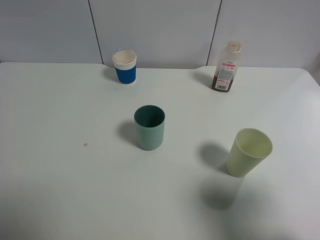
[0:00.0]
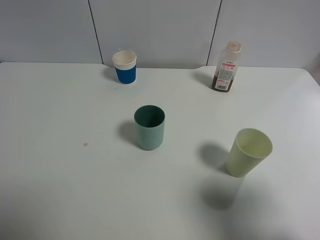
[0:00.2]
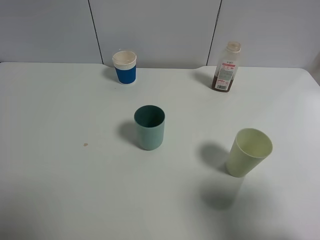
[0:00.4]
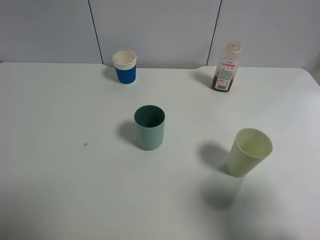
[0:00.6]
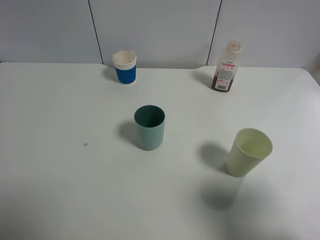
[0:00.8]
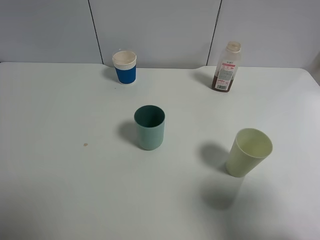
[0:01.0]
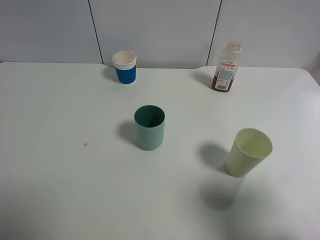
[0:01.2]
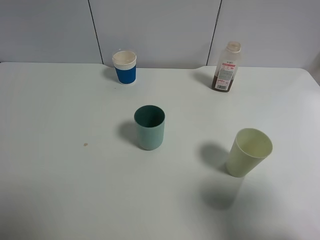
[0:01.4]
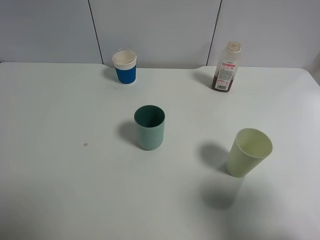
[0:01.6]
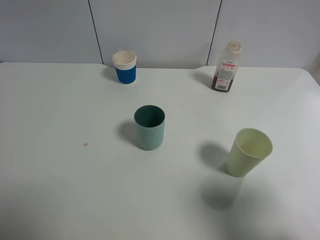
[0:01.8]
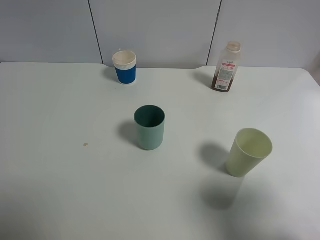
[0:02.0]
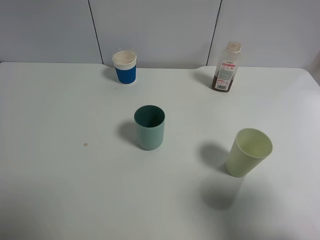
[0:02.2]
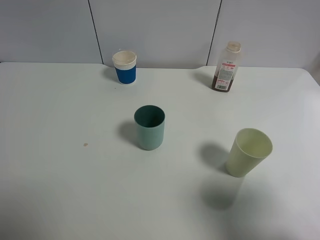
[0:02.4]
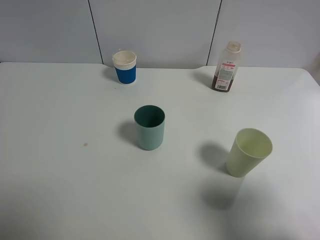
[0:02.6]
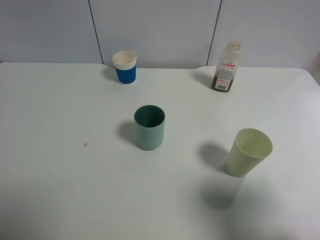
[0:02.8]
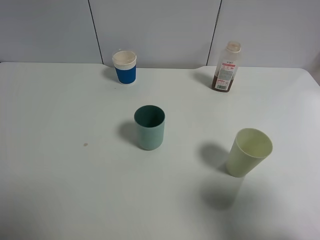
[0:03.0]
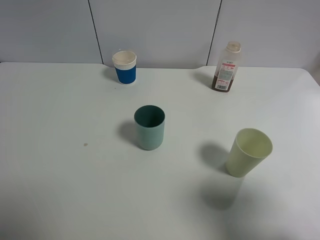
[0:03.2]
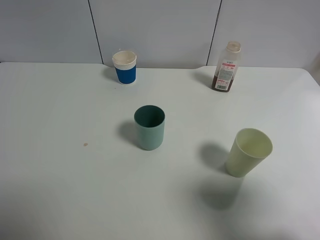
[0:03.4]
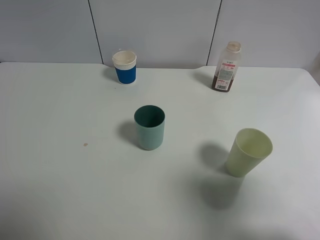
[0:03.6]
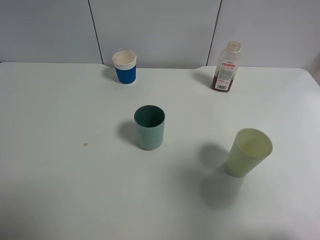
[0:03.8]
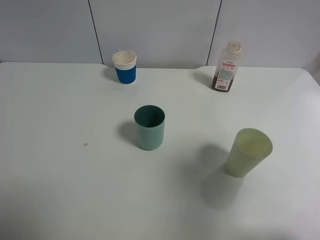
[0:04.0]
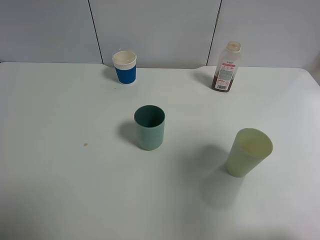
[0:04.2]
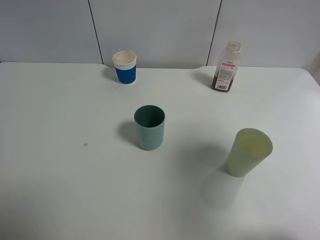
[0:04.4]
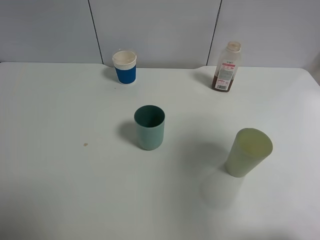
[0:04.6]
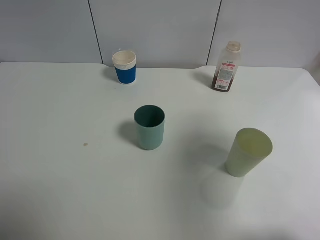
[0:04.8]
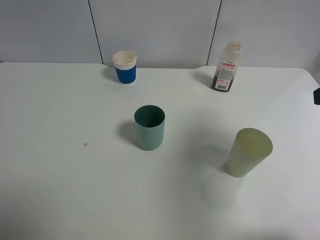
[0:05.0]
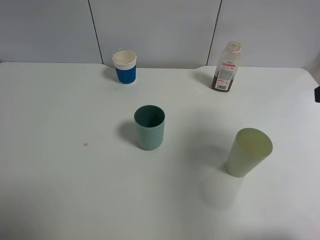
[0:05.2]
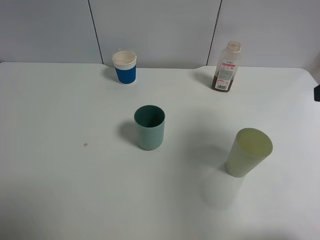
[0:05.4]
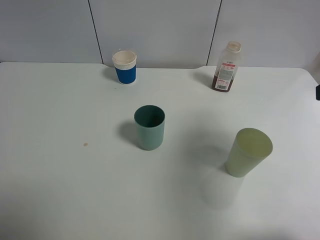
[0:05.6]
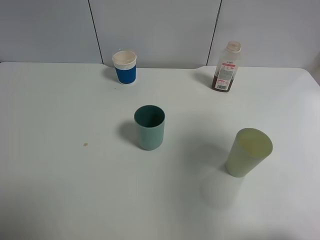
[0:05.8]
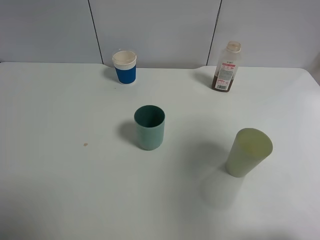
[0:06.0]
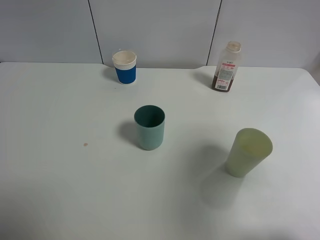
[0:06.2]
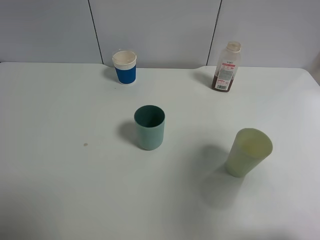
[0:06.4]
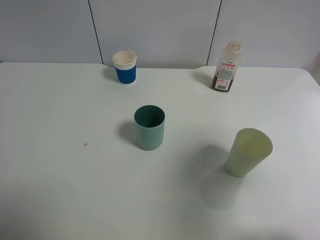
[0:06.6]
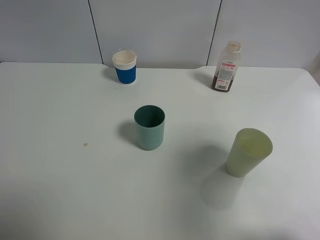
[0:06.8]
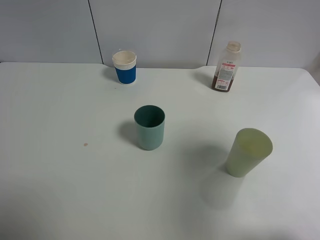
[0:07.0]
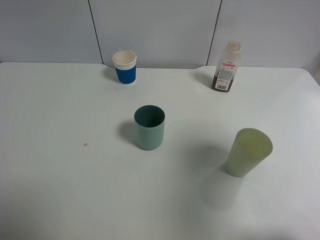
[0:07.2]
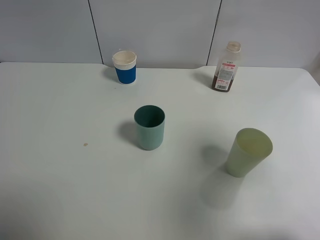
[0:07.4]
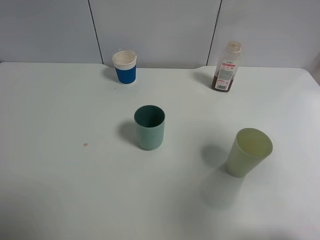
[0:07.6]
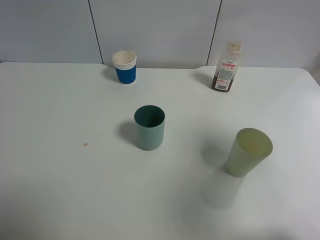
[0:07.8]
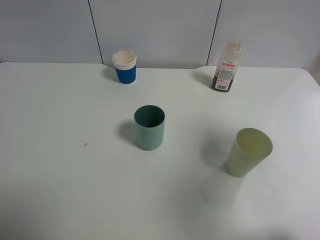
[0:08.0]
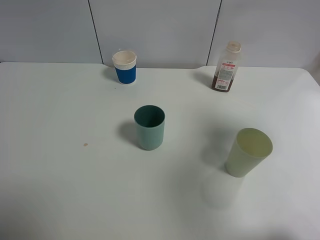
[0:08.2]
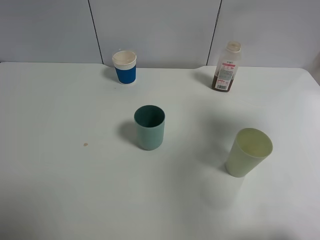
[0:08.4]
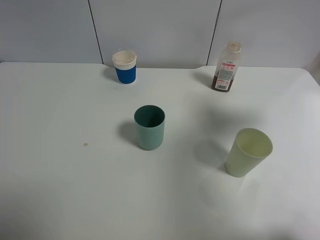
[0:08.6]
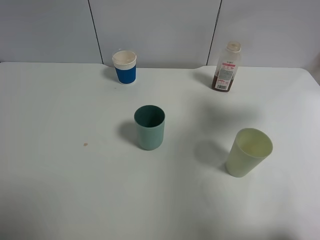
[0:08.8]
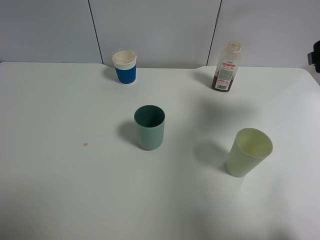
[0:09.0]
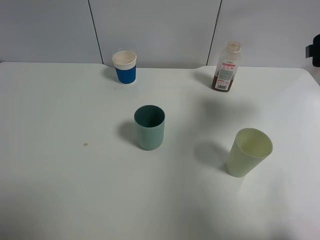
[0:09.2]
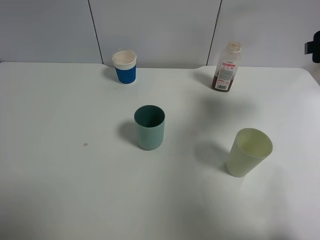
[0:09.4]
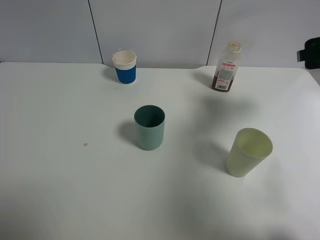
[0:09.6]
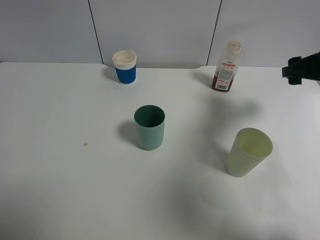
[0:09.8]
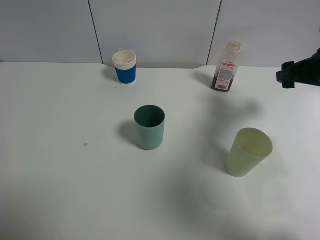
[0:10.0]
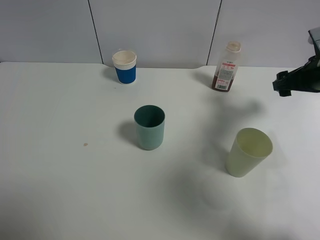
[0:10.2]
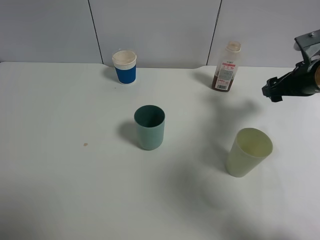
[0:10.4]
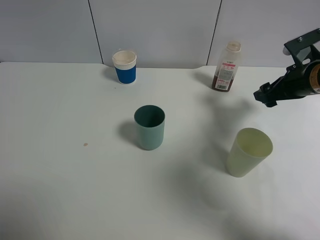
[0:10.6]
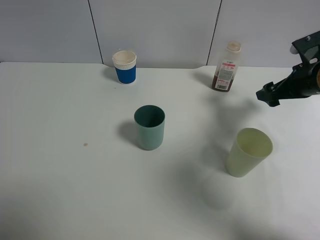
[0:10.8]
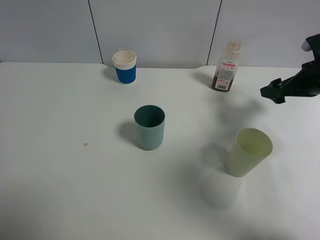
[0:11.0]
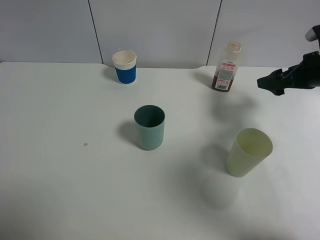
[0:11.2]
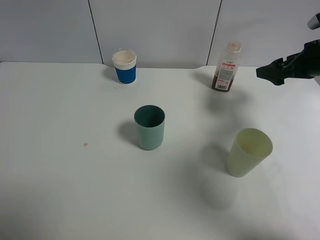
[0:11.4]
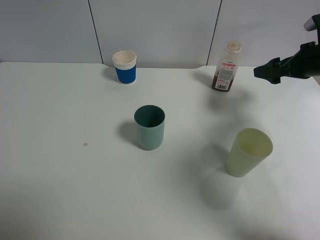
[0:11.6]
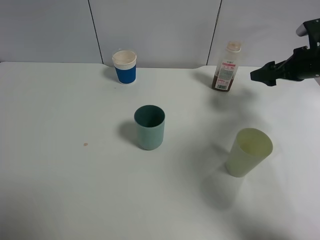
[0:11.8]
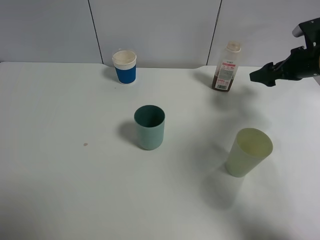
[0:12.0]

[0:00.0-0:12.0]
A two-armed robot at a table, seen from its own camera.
Task of the whole recording: use a gripper to hold the bottle of the drink and pour it into a random cup.
0:00.0 to 0:03.0: The two grippers keep their place.
0:03.0 to 0:04.4: The right gripper is displaced forward and upward by some 10 cm.
0:07.6 to 0:09.0: The right gripper heads forward and downward, covering approximately 15 cm.
0:09.0 to 0:10.4: The right gripper goes roughly 10 cm downward and forward.
0:10.4 to 0:12.0: The right gripper goes roughly 5 cm forward.

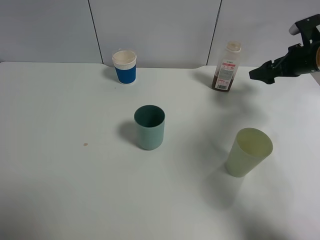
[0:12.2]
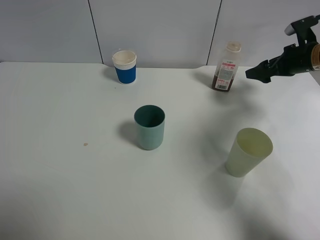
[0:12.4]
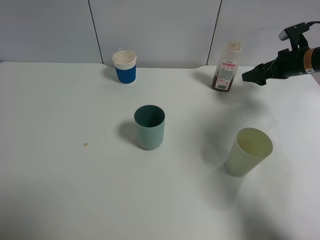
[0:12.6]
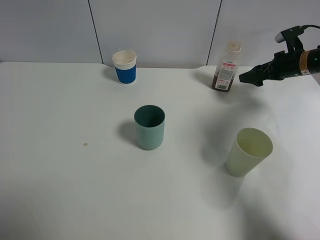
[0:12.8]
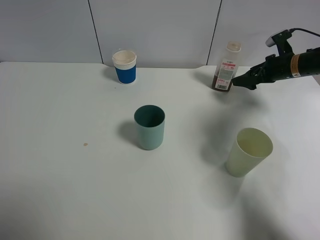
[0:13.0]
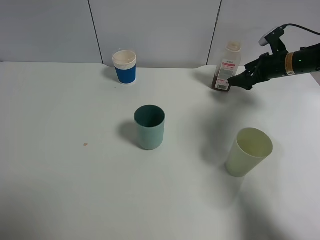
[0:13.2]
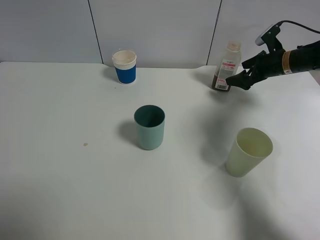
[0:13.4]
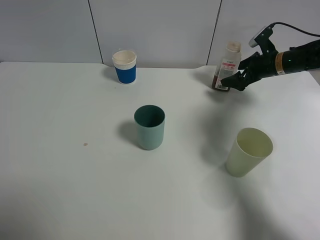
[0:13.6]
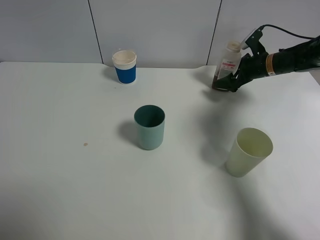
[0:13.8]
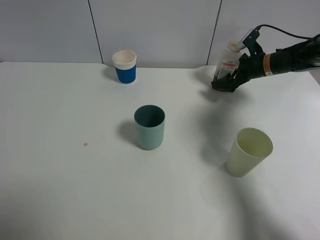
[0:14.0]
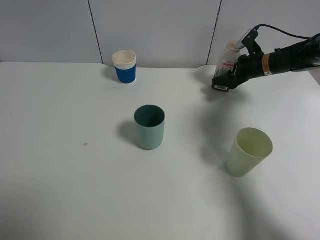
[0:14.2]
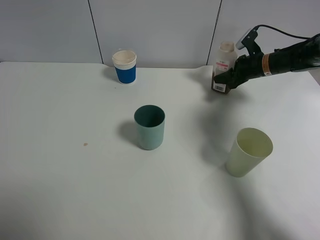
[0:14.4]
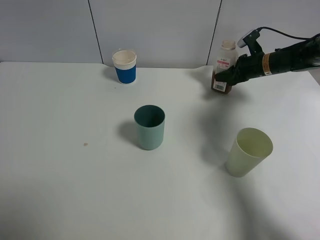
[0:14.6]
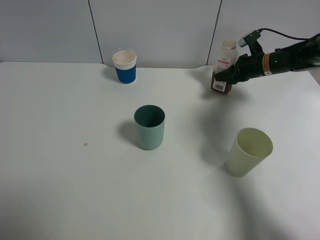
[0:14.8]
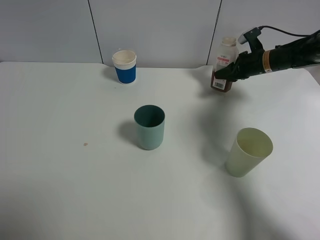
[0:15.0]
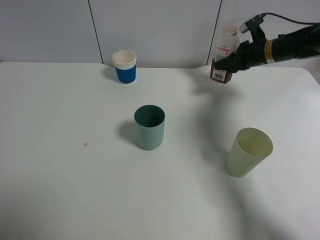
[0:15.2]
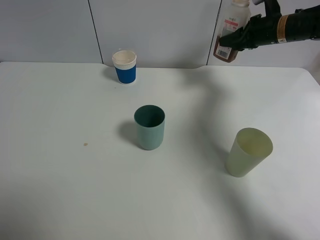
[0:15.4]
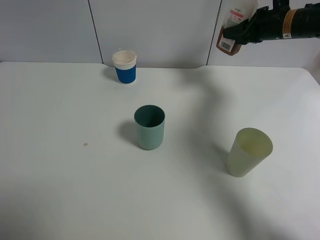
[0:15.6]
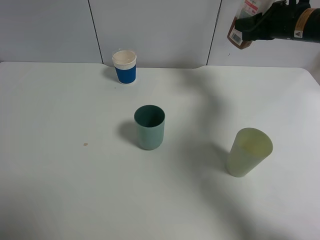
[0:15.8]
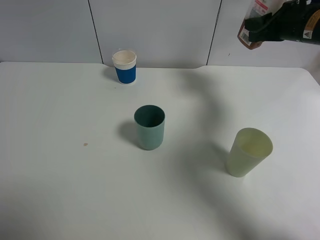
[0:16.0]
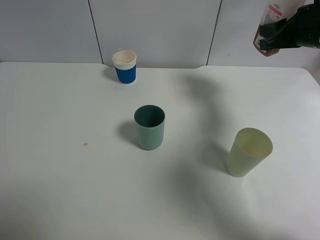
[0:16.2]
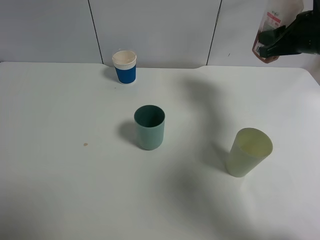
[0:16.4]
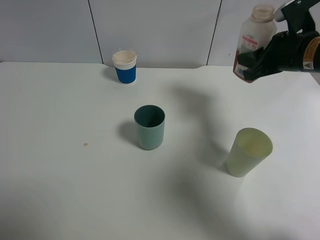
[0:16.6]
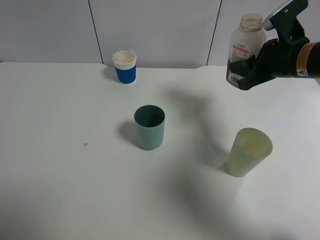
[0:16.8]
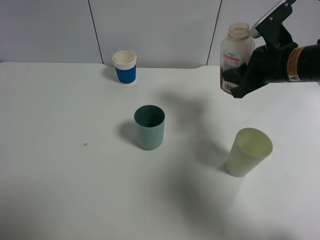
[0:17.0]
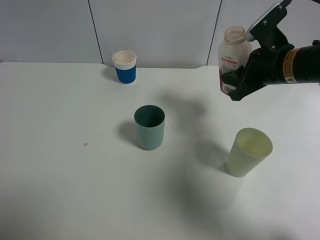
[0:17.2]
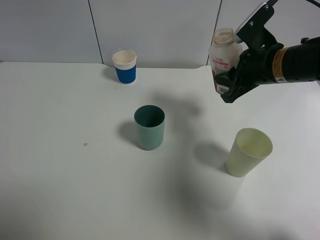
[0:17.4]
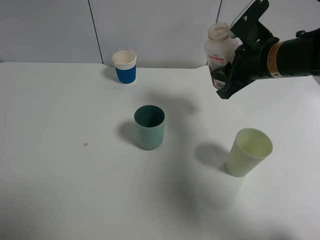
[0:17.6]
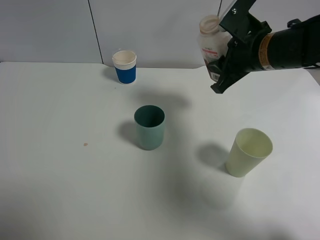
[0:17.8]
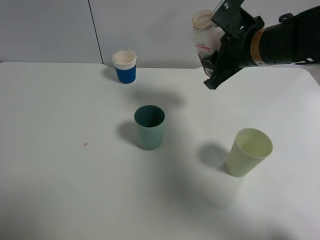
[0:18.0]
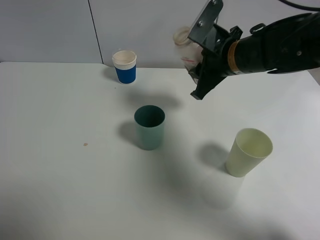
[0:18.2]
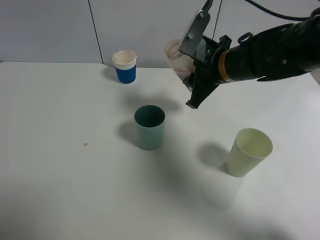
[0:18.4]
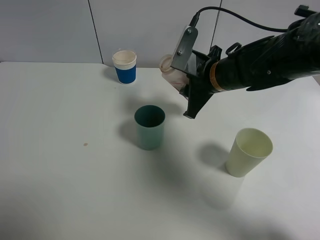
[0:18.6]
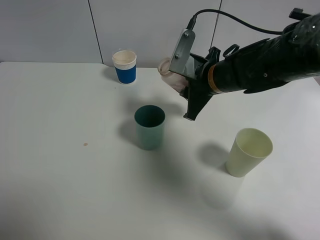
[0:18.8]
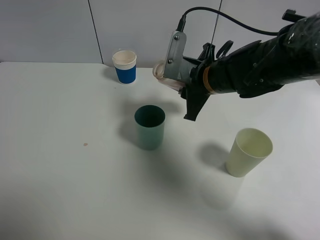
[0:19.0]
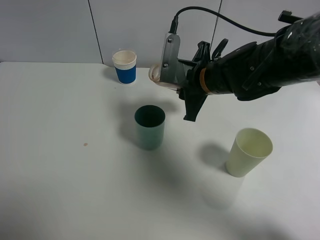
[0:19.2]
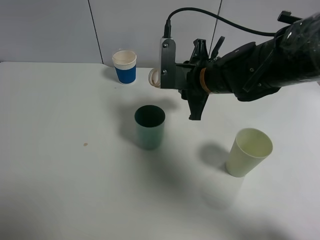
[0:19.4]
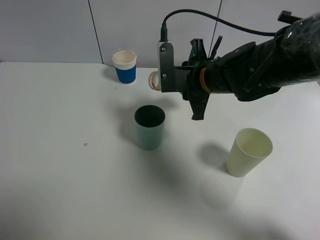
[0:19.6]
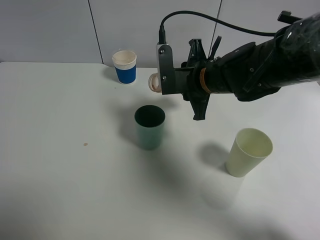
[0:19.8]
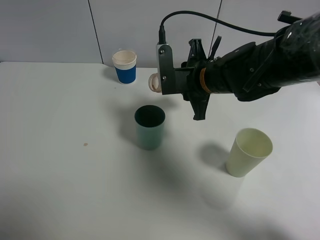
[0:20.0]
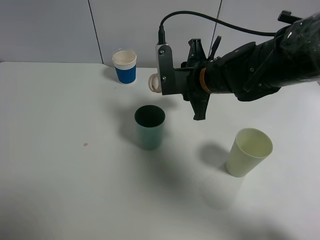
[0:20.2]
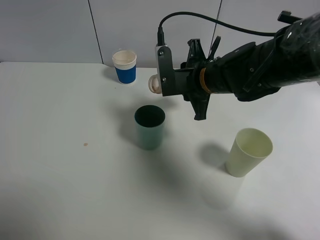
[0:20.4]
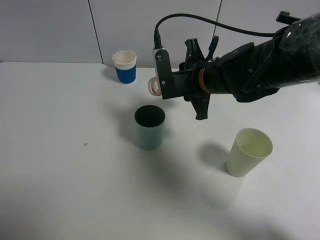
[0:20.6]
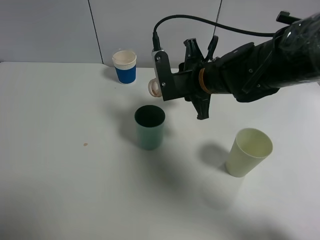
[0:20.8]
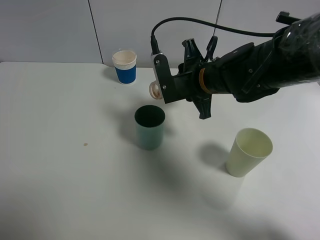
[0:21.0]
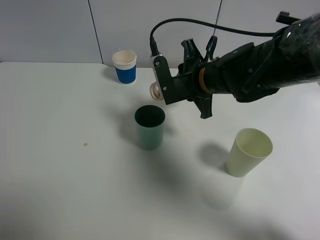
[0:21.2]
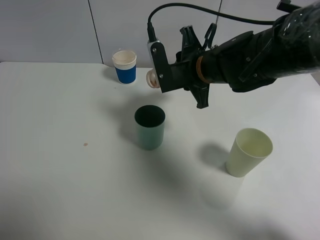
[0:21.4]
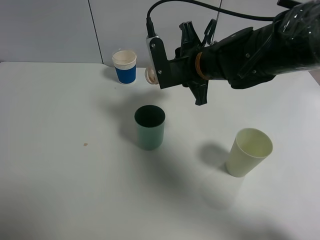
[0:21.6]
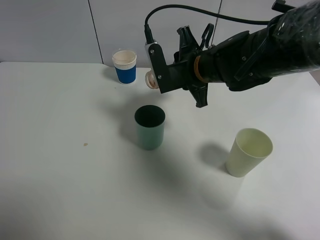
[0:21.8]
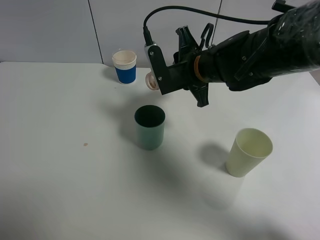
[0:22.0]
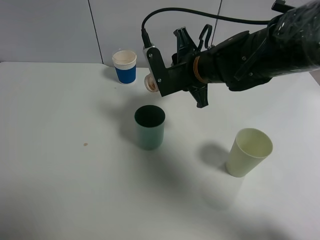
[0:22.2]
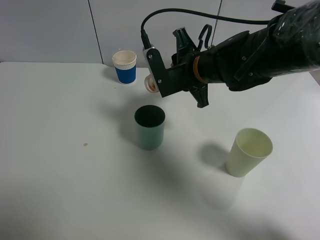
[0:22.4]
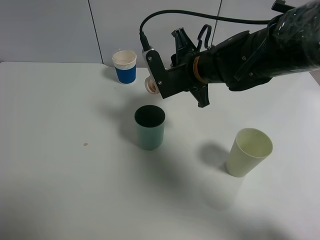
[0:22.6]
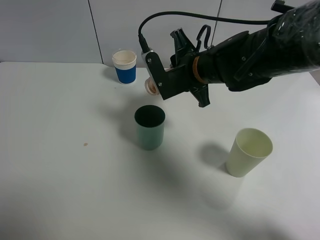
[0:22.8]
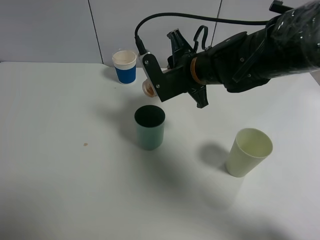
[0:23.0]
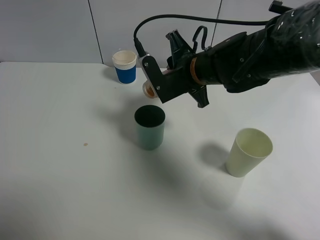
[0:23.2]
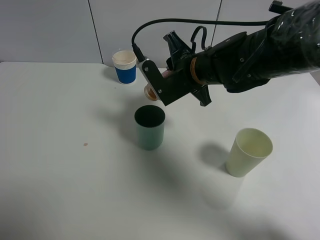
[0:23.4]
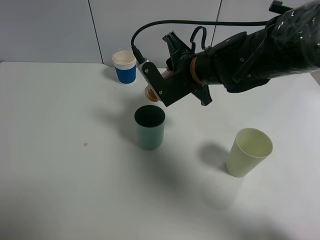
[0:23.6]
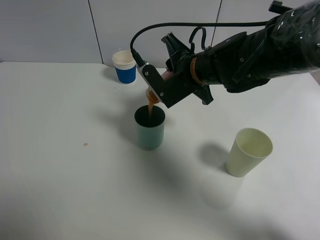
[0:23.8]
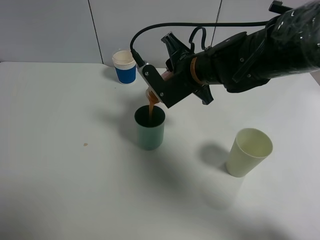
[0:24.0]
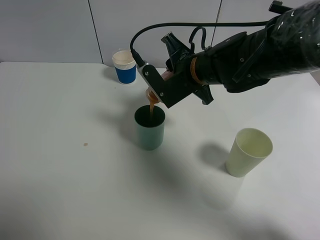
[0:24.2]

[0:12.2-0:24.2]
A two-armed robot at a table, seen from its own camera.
Task of the whole recording: use a gripper to hold the bottle of the drink and pour it into a random cup.
Step, 0:12.2 to 0:14.6: Grasp the cranberry juice bottle with the right gripper.
0:12.2 to 0:13.8: The right gripper heads forward, downward and to the left, covering about 10 cm.
0:13.8 to 0:15.2: The right gripper moves upward, approximately 5 cm, and closes up.
0:15.2 to 0:16.6: The right gripper moves backward, roughly 15 cm.
0:16.6 to 0:18.2: The right gripper shifts about 10 cm to the left.
0:19.8 to 0:21.2: The grippers make only small movements.
0:21.2 to 0:22.6: The grippers make only small movements.
0:22.6 to 0:24.2: The grippers stay close to where they were, moving slightly.
